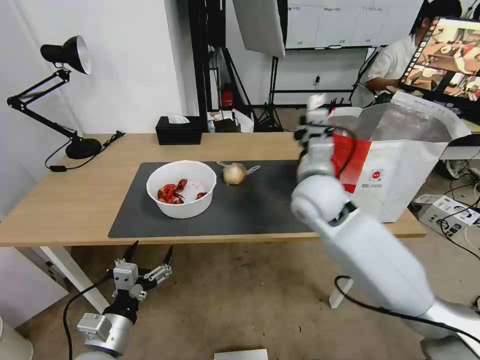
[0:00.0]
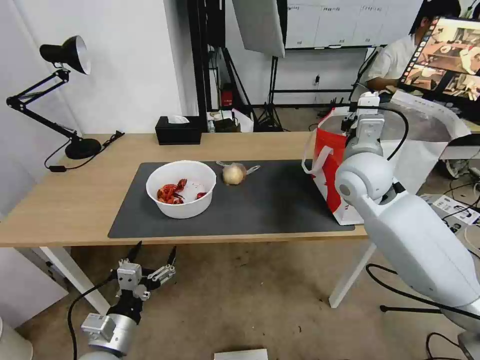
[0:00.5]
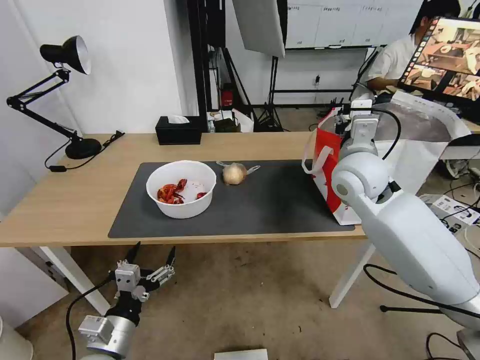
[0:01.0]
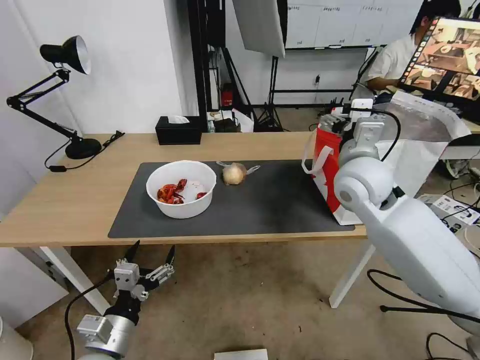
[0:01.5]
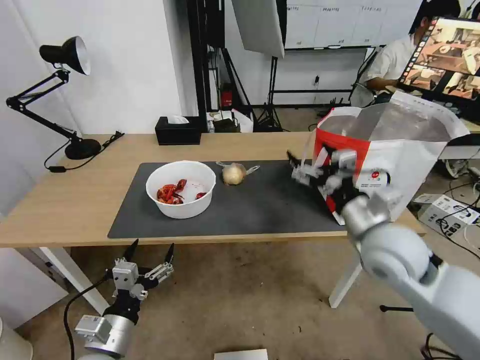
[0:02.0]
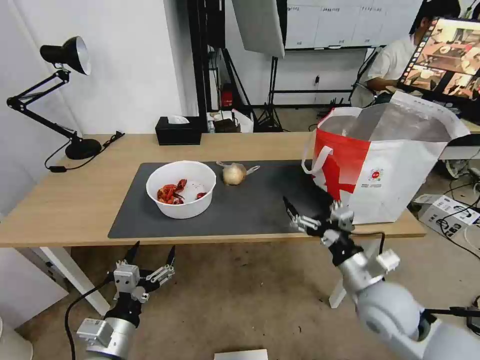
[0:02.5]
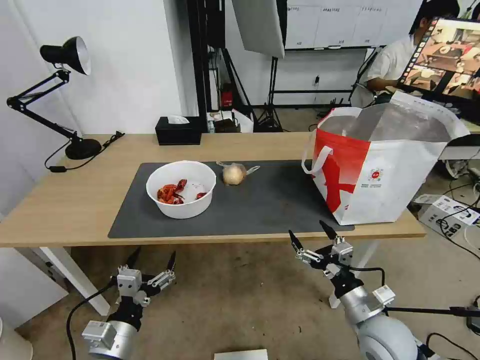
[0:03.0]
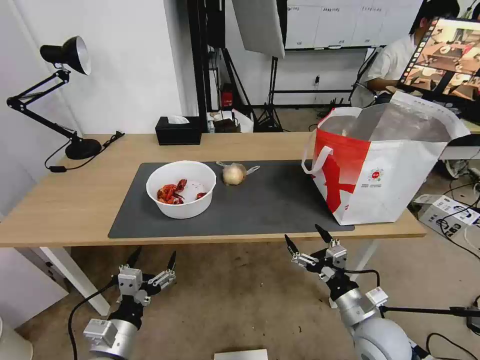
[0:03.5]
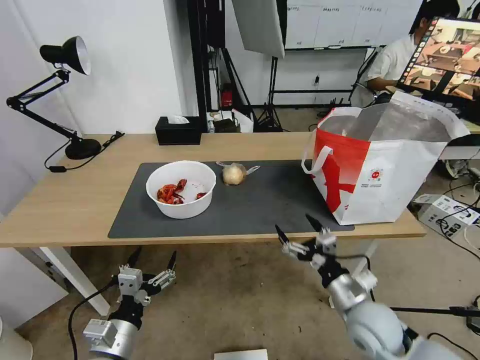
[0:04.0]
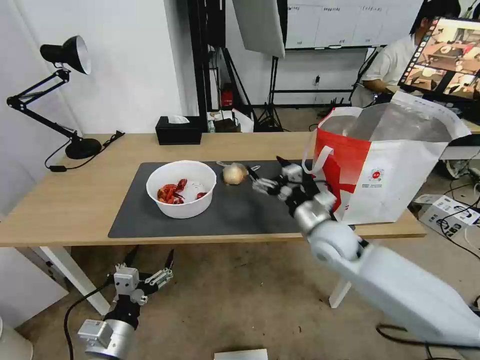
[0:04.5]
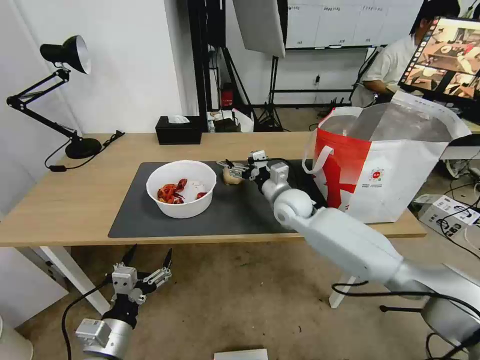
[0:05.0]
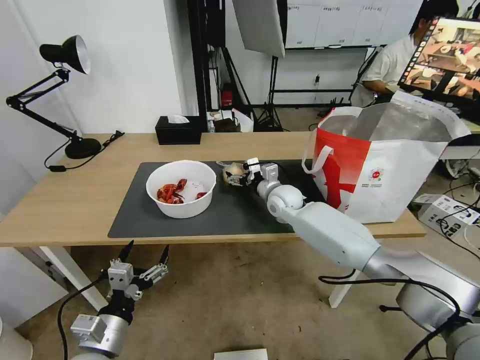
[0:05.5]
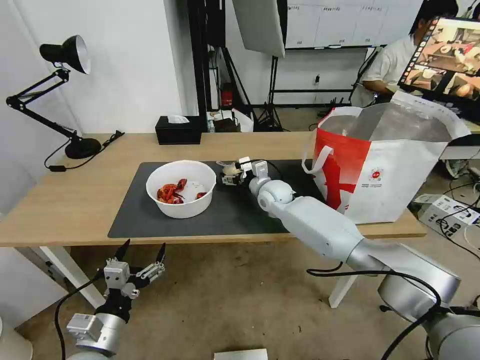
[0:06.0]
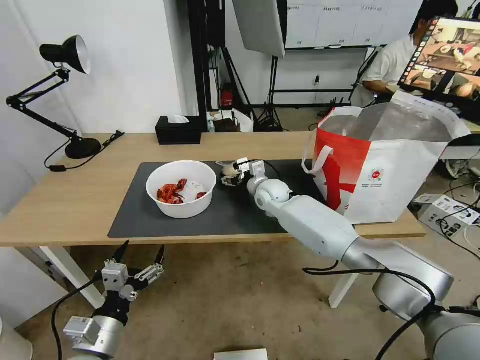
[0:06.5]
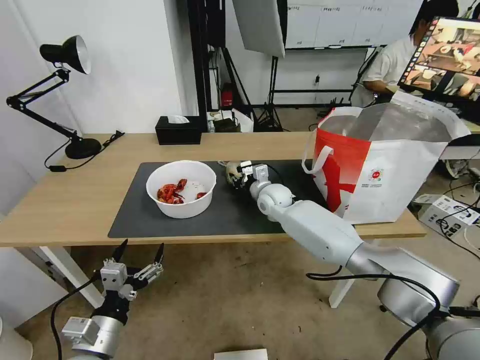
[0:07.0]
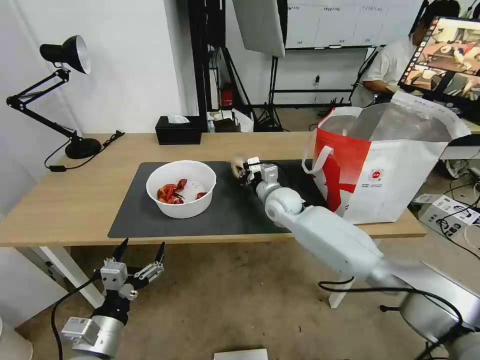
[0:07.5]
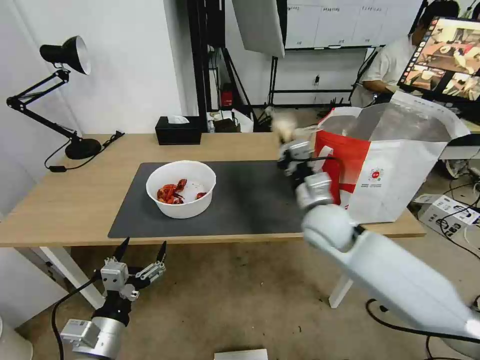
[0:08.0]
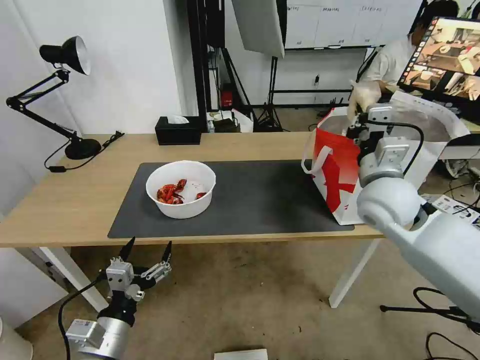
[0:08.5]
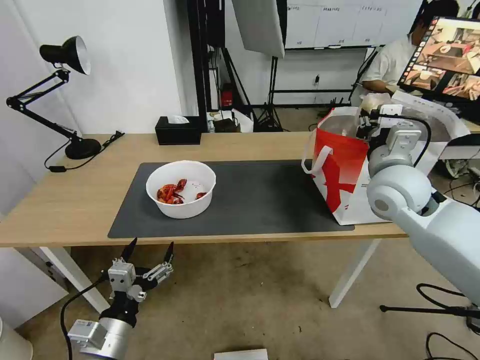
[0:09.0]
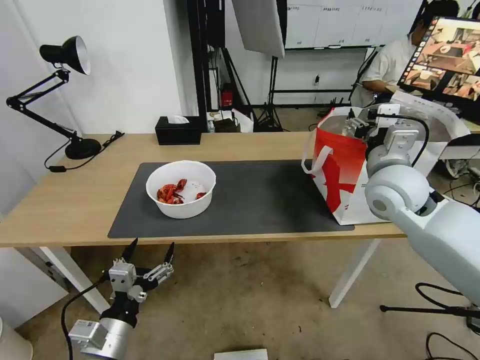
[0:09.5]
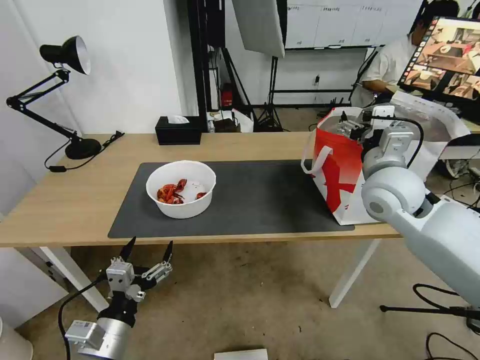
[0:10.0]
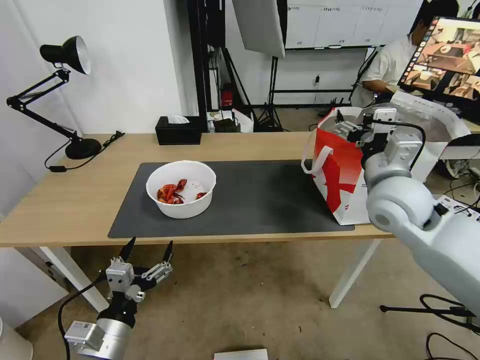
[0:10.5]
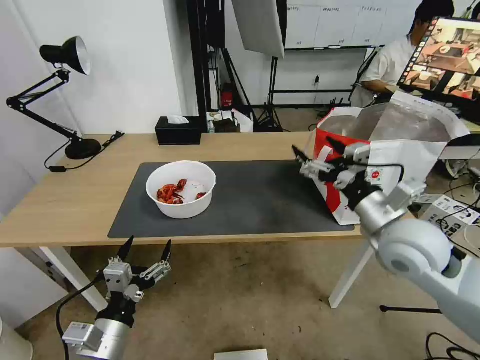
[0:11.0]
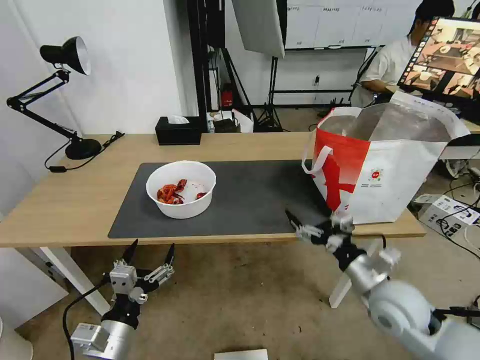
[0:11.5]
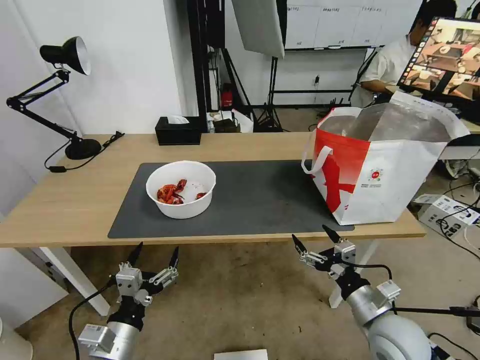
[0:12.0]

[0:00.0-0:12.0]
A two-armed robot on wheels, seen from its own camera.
Task of the whole recording: Pick up the trash from the table and place it into the takeout bag.
0:00.0 to 0:02.0: The right gripper shifts approximately 15 cm to the right and backward, and opens up.
0:02.0 to 0:04.0: The right gripper travels downward and backward by some 20 cm.
0:04.0 to 0:06.0: The right gripper travels forward and to the left by roughly 35 cm.
0:06.0 to 0:08.0: The right gripper heads backward, upward and to the right, covering approximately 20 cm, and closes up.
0:08.0 to 0:10.0: The right gripper heads to the right and upward, covering roughly 15 cm, and opens up.
0:10.0 to 0:12.0: The right gripper is displaced downward and backward by approximately 30 cm.

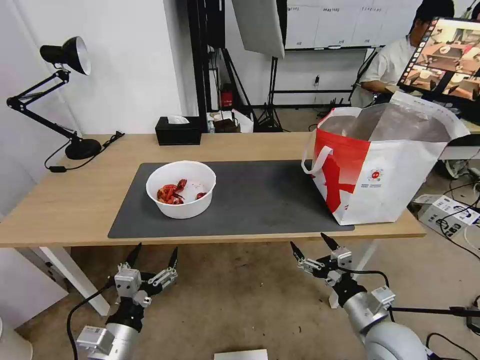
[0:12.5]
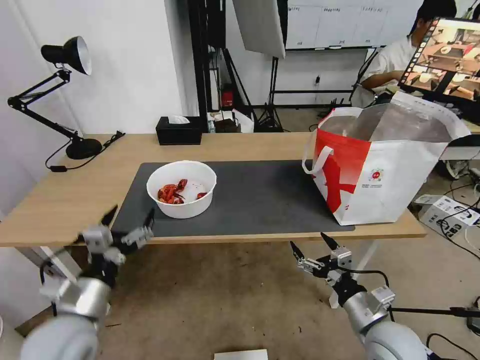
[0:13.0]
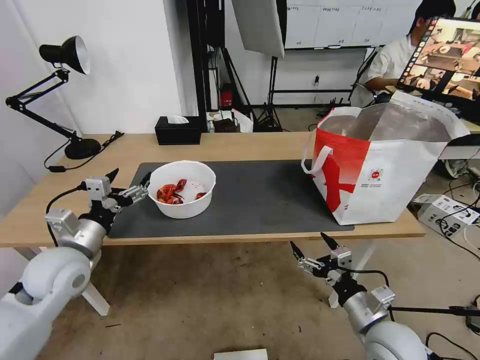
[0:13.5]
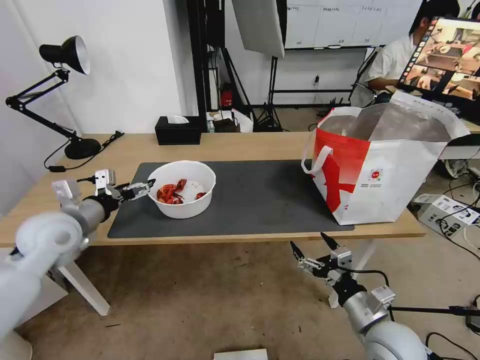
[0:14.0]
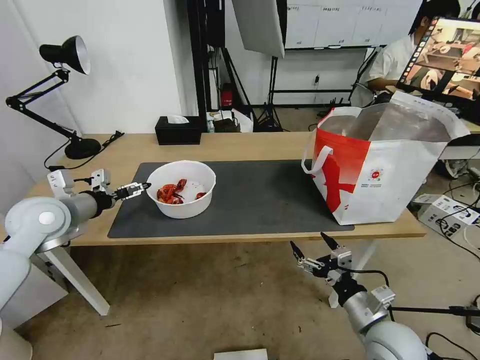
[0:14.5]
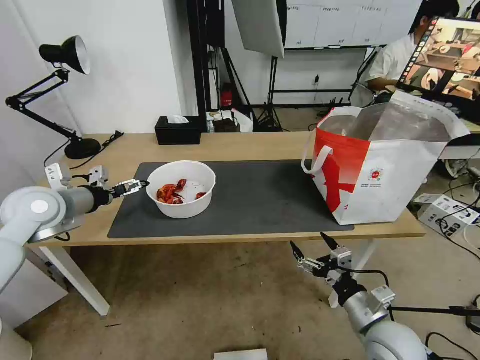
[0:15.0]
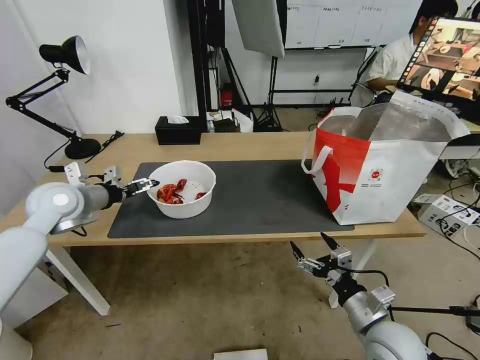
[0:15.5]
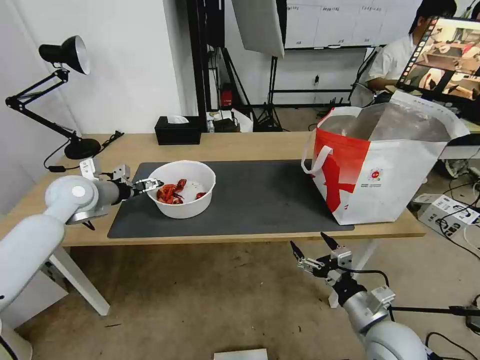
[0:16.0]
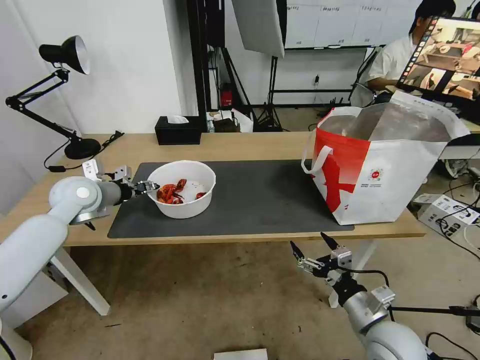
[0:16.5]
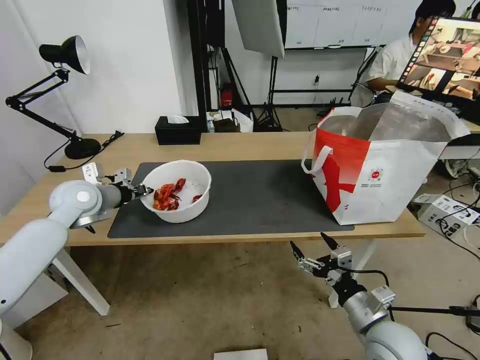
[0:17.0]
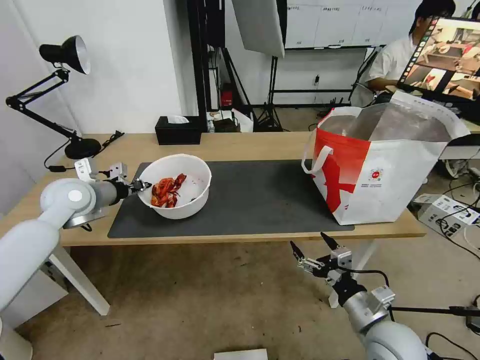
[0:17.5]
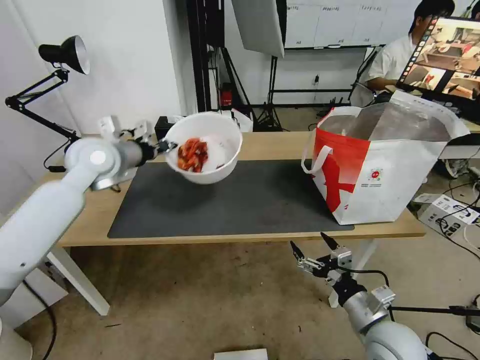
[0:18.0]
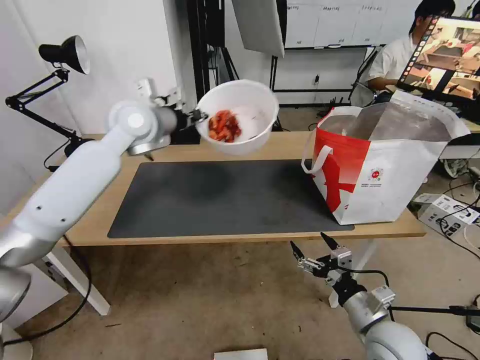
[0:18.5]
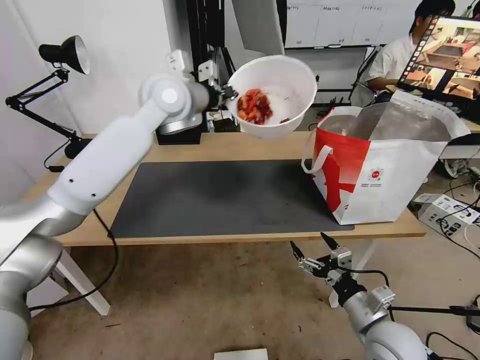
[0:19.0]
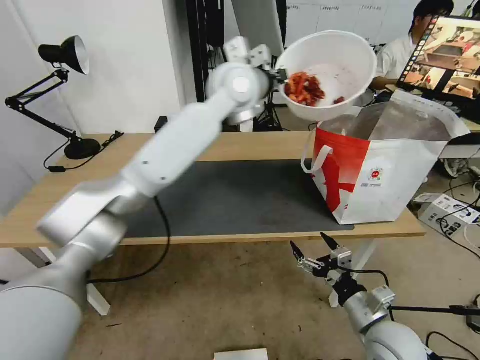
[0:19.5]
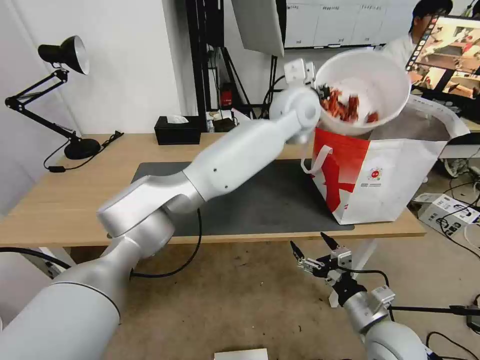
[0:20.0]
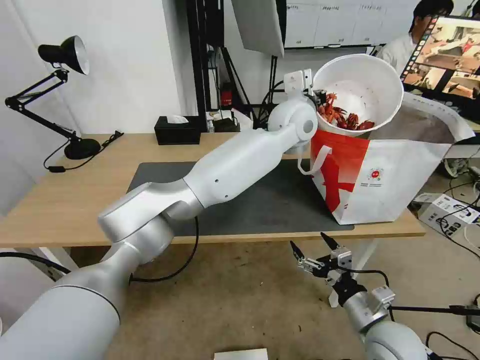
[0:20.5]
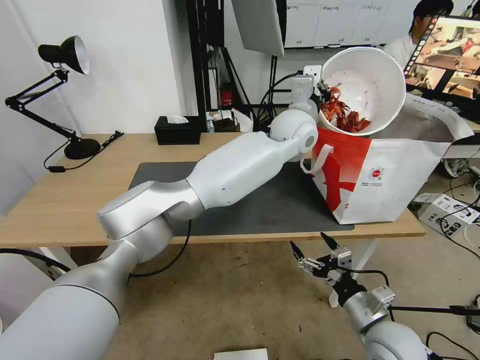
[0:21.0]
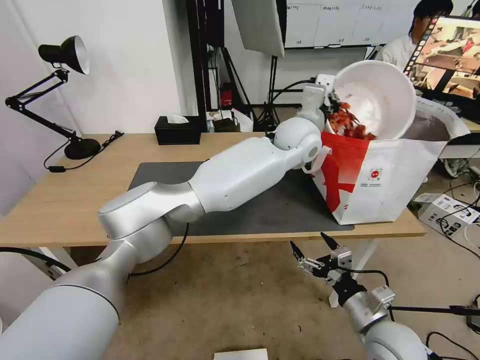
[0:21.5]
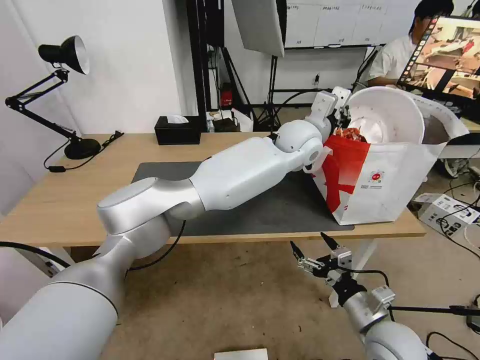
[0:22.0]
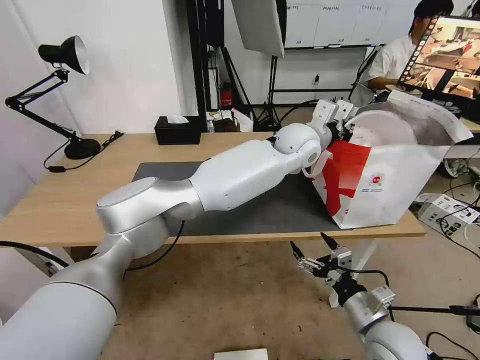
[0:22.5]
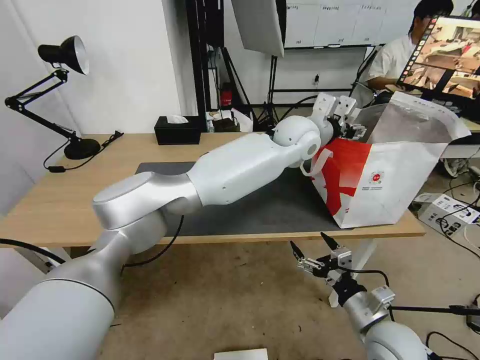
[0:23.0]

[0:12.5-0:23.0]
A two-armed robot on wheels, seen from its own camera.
Task of the whole recording: Pick up the trash from the table and place it into the takeout bag.
0:12.5 to 0:14.5: The left gripper travels forward, upward and to the left by about 35 cm.
0:14.5 to 0:16.5: The left gripper travels forward by about 10 cm, and closes up.
0:16.5 to 0:19.0: The left gripper moves to the right and upward, some 30 cm, and closes its fingers.
0:19.0 to 0:21.0: The left gripper is displaced to the right by about 25 cm.
0:21.0 to 0:23.0: The left gripper opens its fingers.

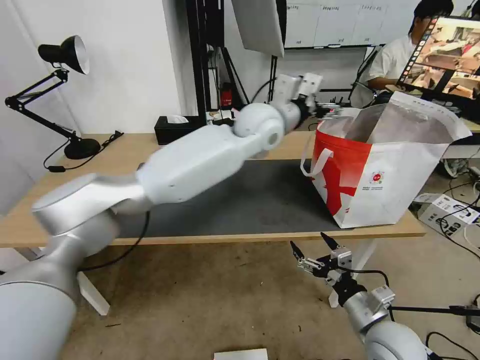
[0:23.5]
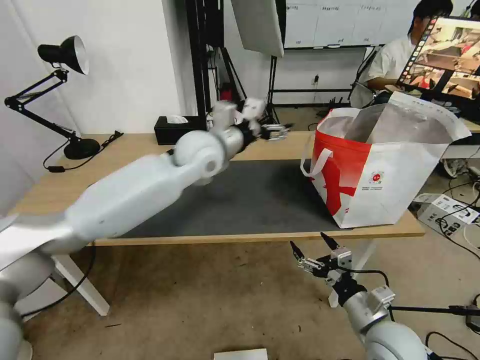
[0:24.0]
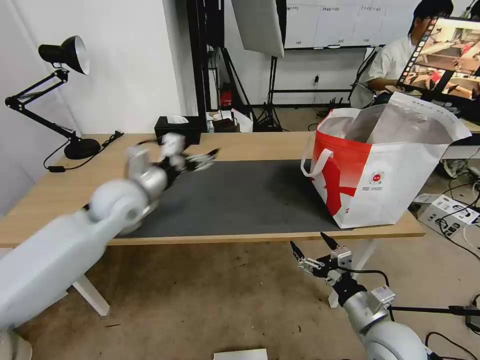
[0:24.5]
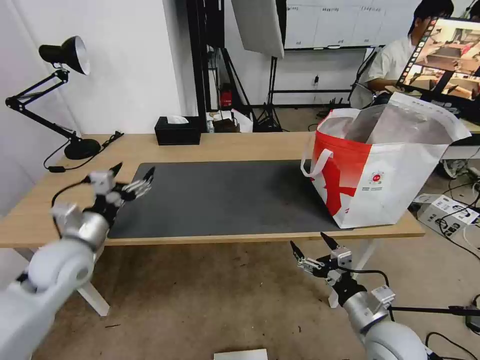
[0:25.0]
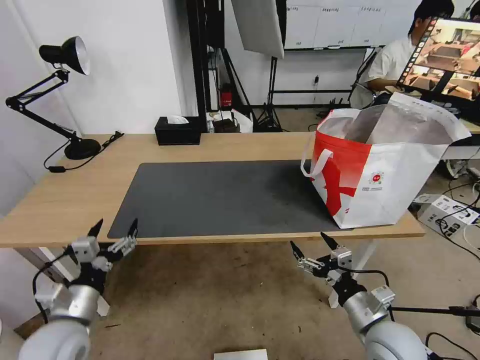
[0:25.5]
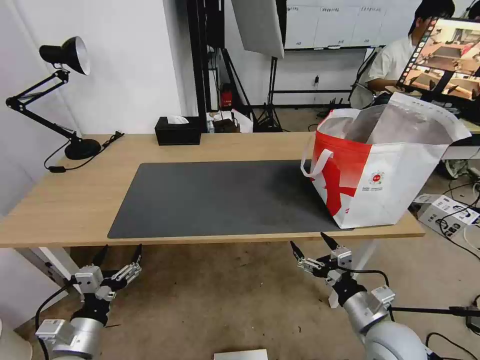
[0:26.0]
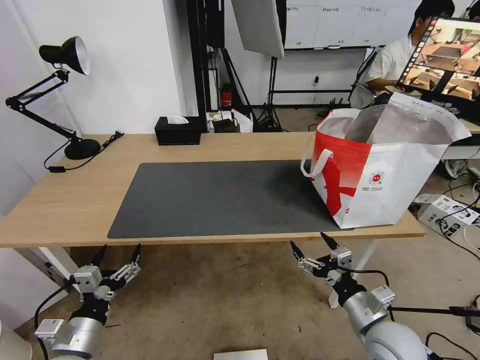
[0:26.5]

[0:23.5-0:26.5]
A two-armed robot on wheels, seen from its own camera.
Task of the whole recording: Pick up the trash from the table and place it into the takeout bag.
0:23.5 to 0:25.0: The left gripper travels to the left, backward and downward by some 50 cm.
0:25.0 to 0:26.5: The left gripper heads backward and downward, covering approximately 20 cm.
